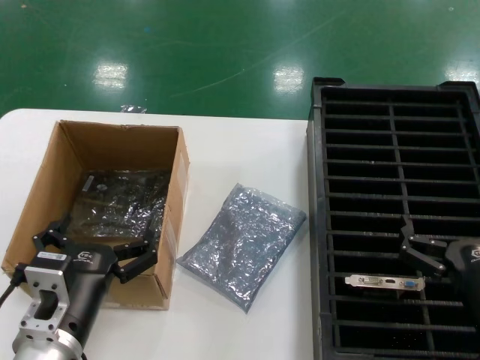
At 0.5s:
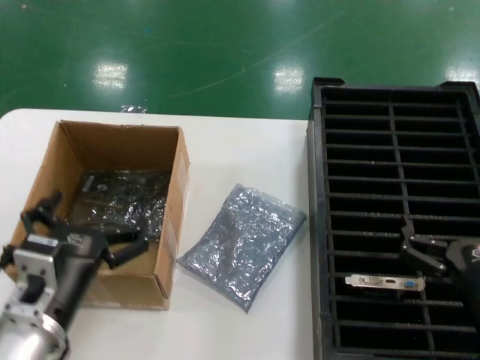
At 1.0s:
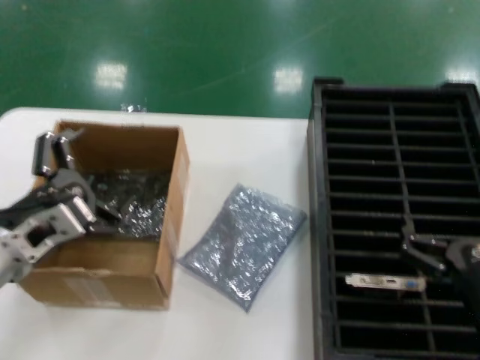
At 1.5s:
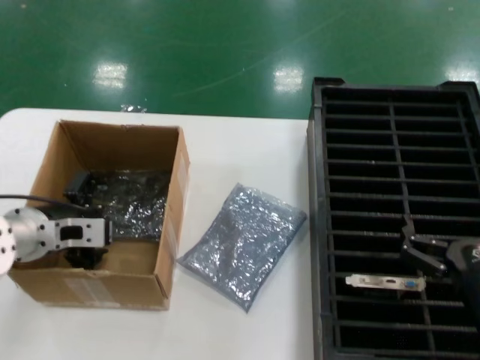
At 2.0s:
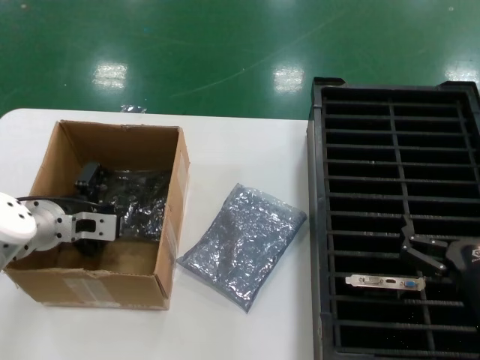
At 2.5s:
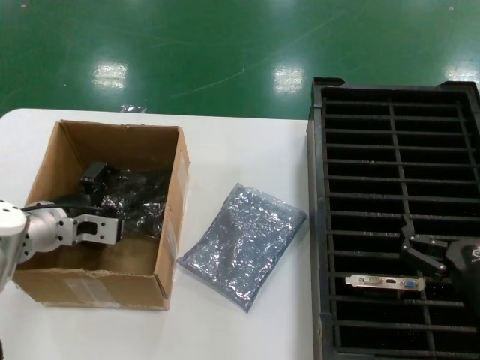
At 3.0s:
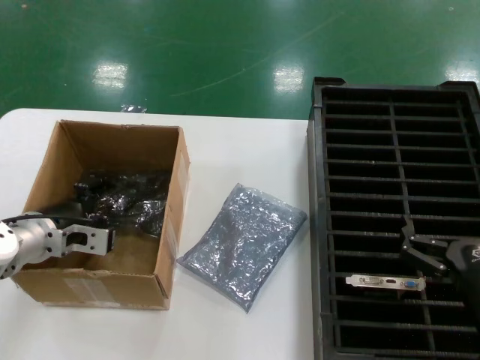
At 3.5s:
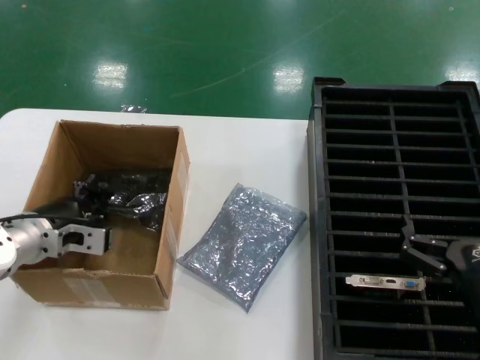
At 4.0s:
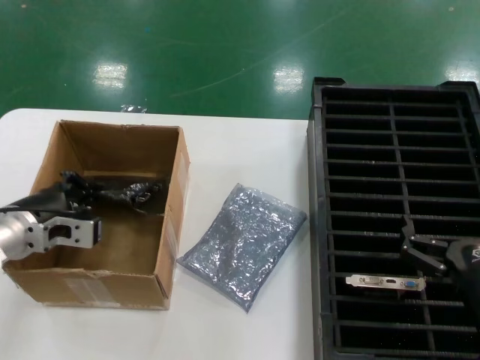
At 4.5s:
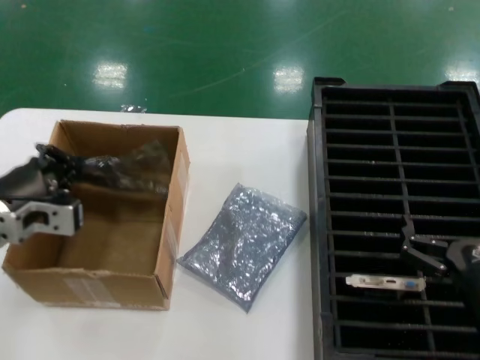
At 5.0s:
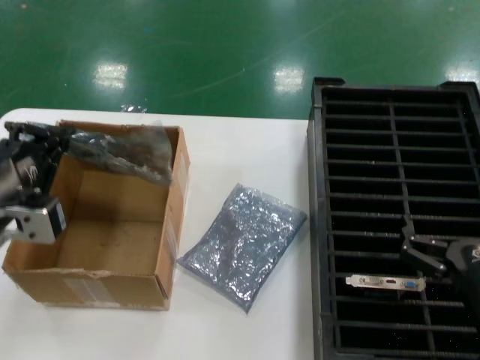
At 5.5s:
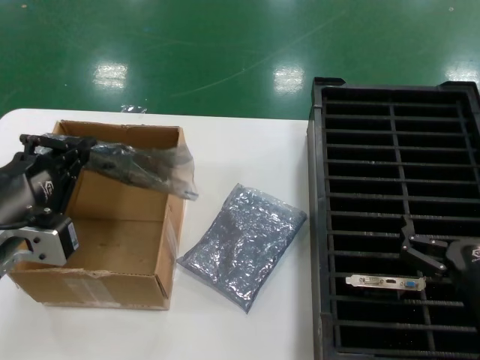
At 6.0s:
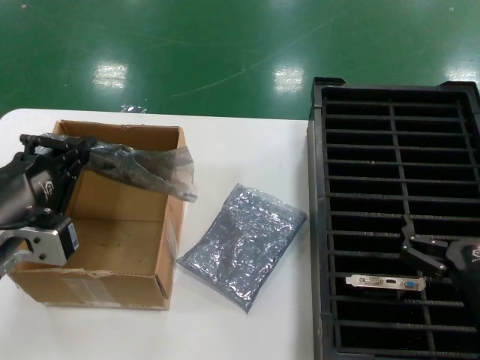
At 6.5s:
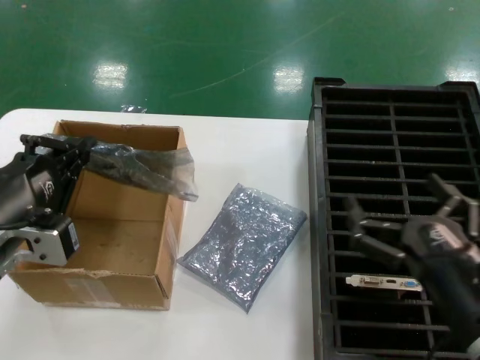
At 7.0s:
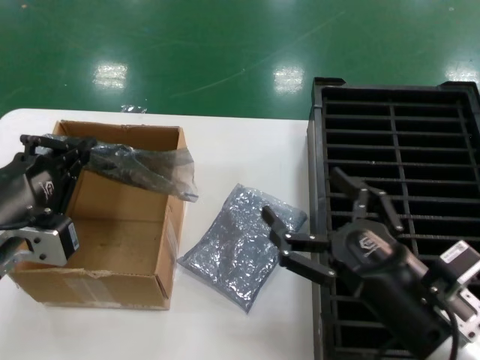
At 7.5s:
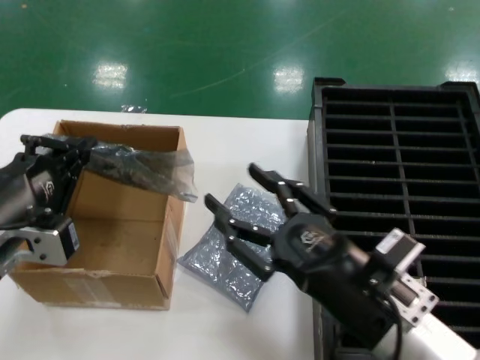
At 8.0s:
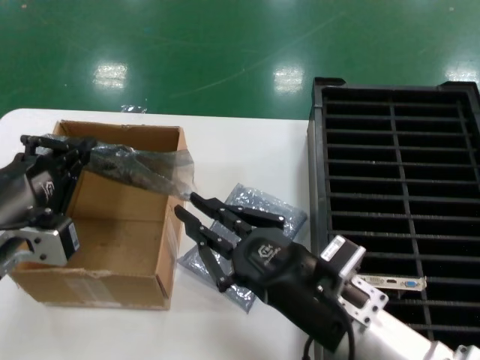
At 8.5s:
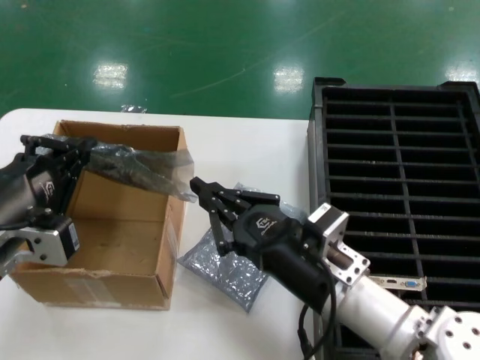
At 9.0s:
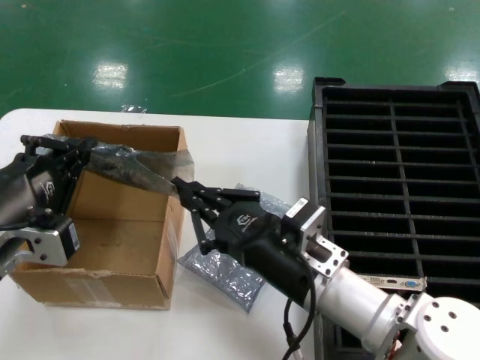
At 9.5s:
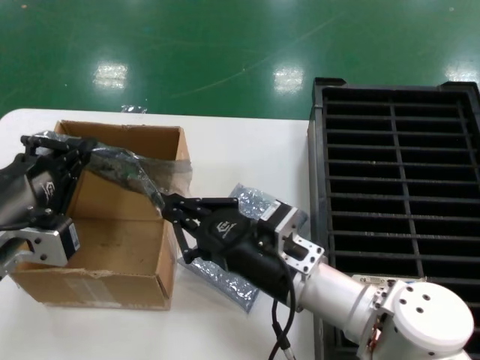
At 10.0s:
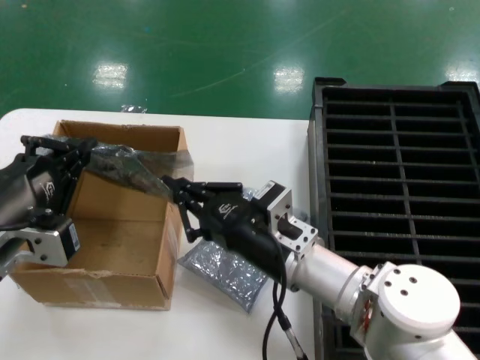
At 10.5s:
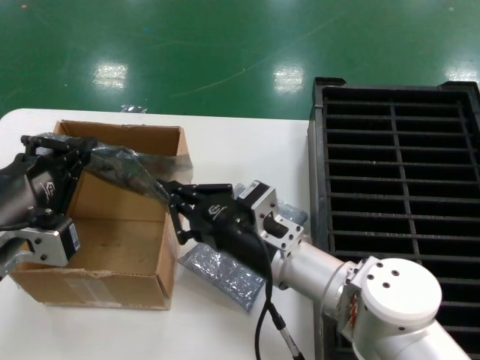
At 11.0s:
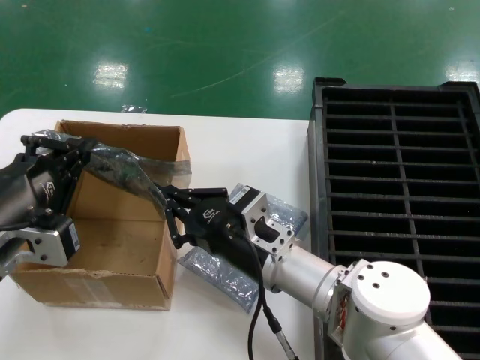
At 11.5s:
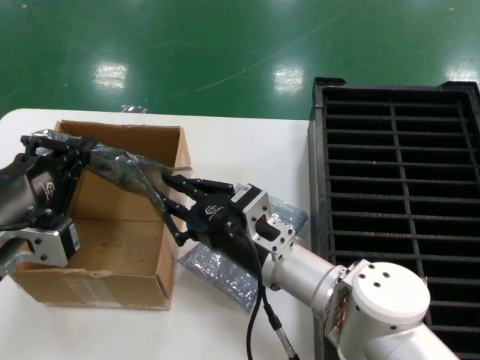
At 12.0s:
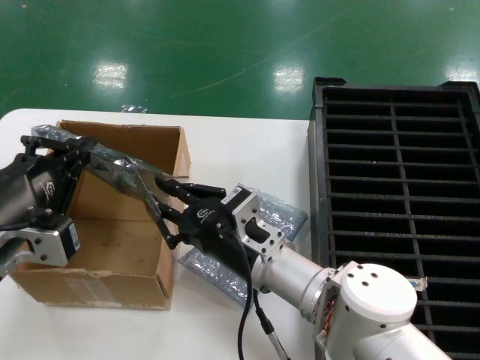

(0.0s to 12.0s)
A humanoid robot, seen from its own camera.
Task of the whole recording: take out graphics card from box remove packaging put into black container.
Step, 0.0s - 4.0s: Grasp the bag.
Step, 4.5s - 5.5s: Lift the bag.
0.0s - 2.0s: The left hand moves forward and to the left, roughly 25 cm.
2.0s - 4.0s: The left hand shifts by approximately 5 cm.
4.0s - 6.0s: The left hand heads backward and upward, covering approximately 20 cm.
6.0s - 8.0s: The right hand shifts some 15 cm to the left.
8.0s - 10.0s: The right hand heads forward and to the left, covering roughly 10 cm.
10.0s - 12.0s: The hands move only a little.

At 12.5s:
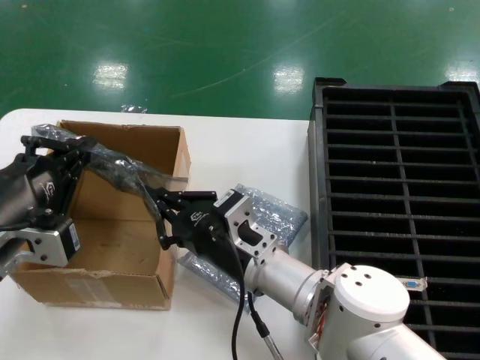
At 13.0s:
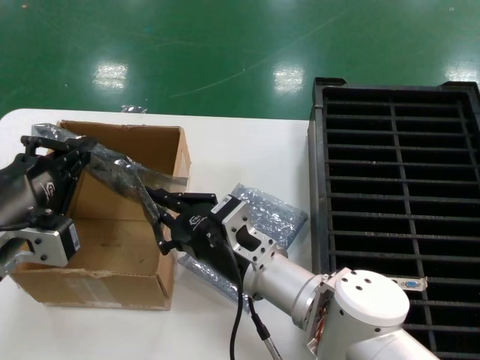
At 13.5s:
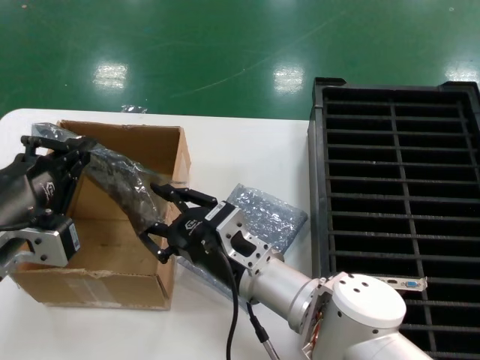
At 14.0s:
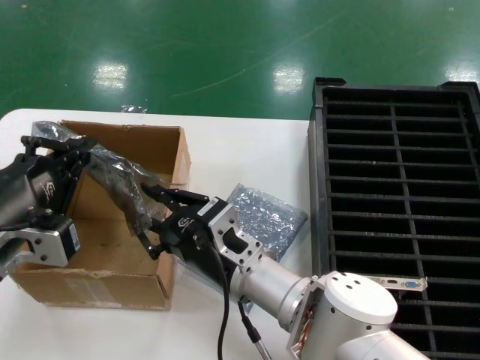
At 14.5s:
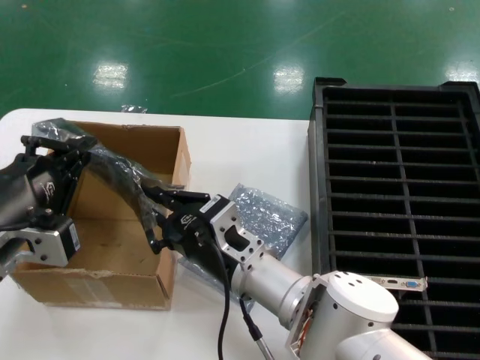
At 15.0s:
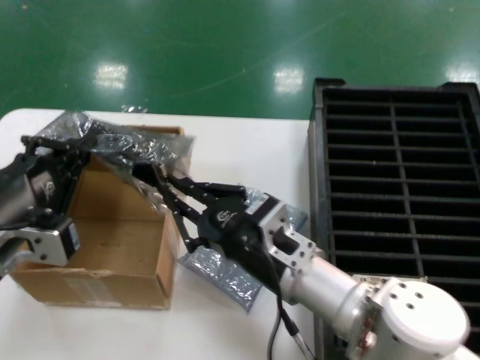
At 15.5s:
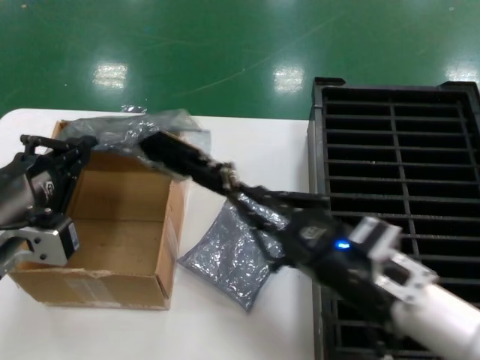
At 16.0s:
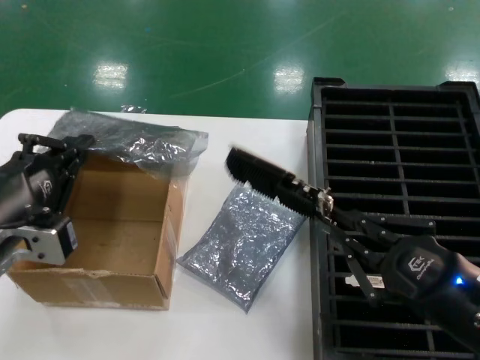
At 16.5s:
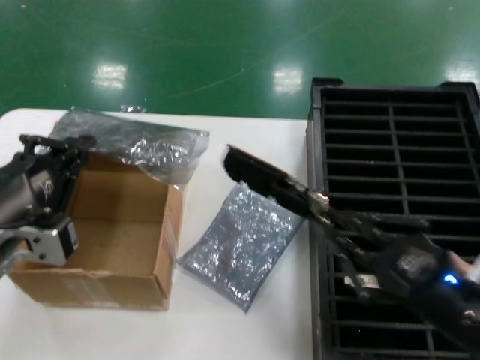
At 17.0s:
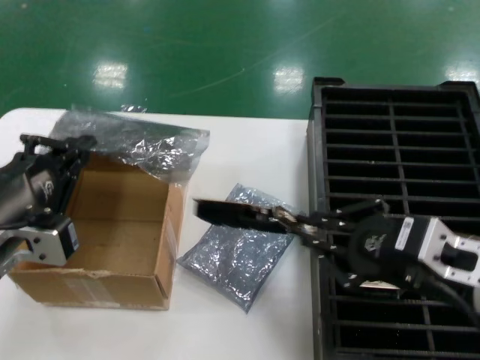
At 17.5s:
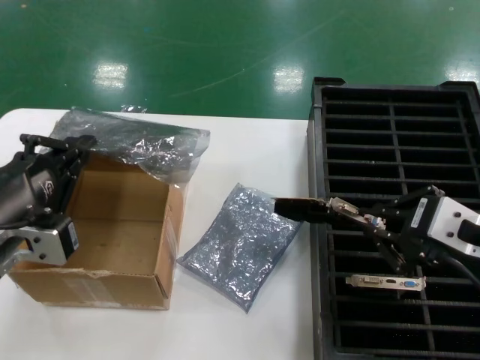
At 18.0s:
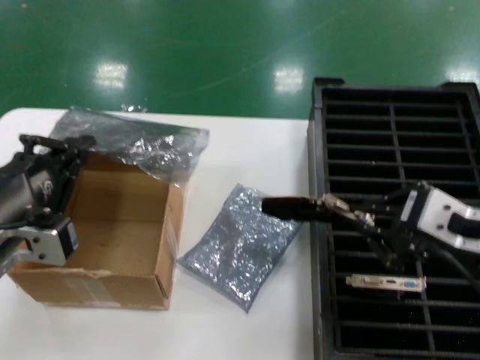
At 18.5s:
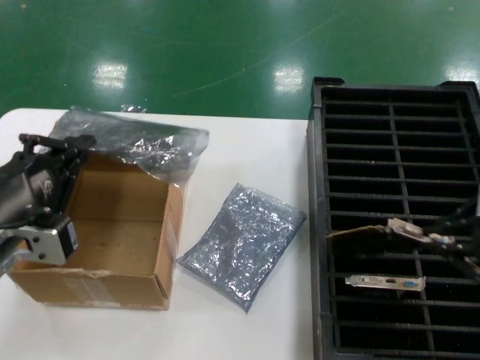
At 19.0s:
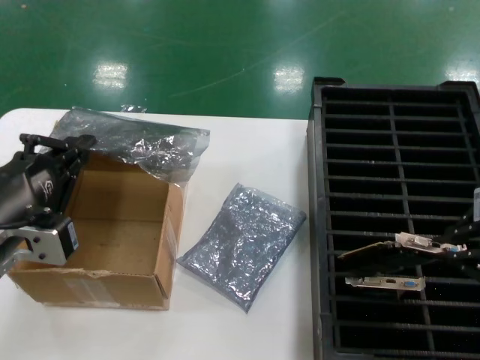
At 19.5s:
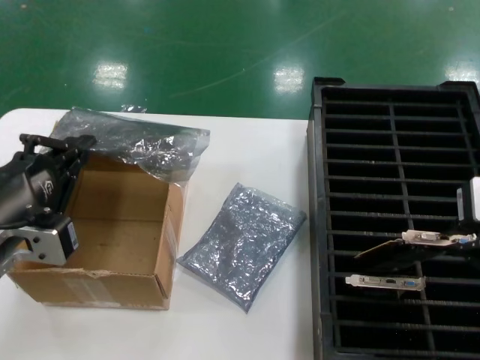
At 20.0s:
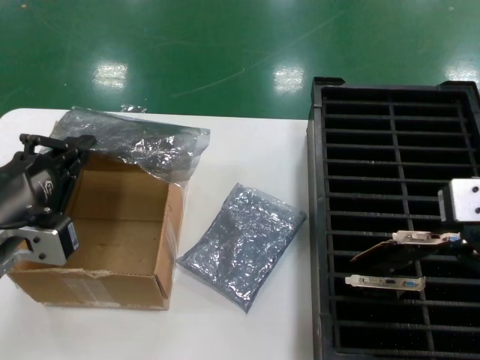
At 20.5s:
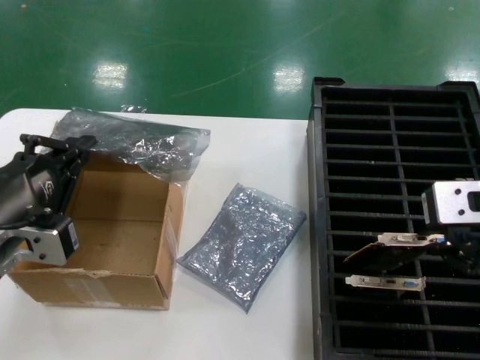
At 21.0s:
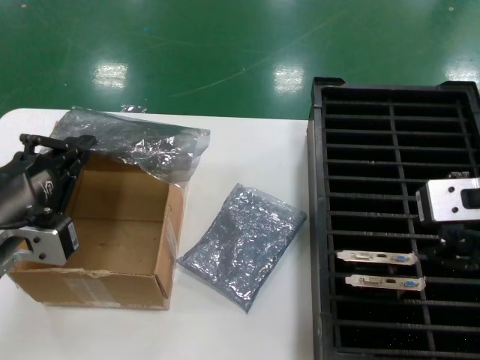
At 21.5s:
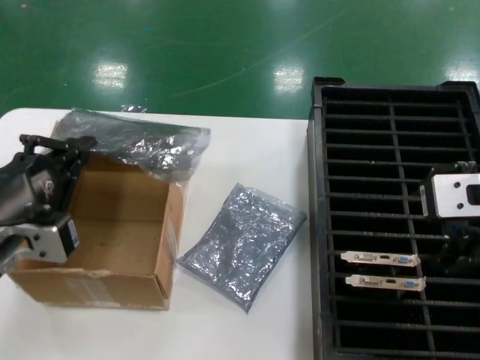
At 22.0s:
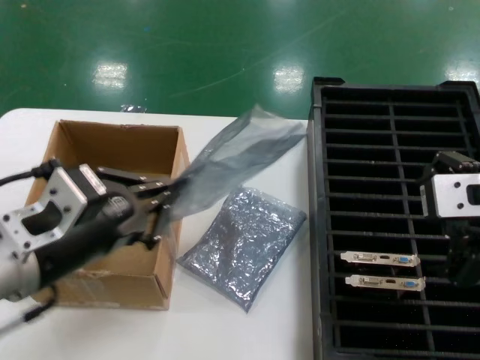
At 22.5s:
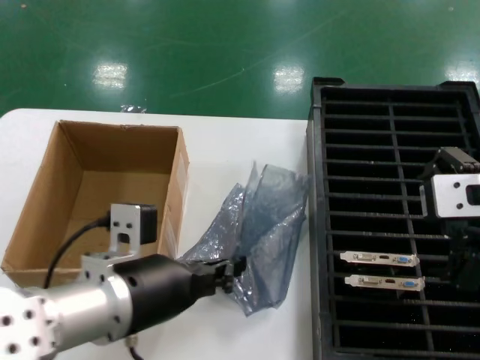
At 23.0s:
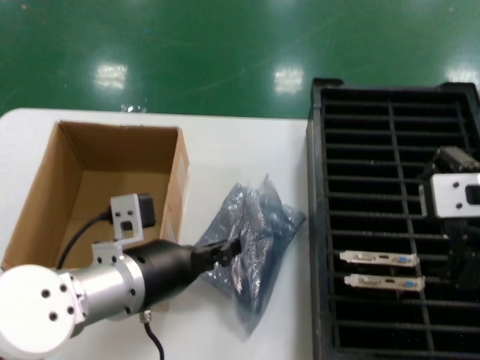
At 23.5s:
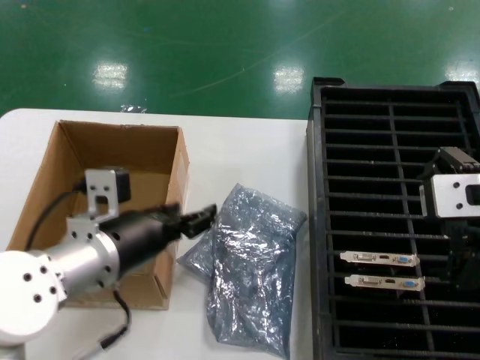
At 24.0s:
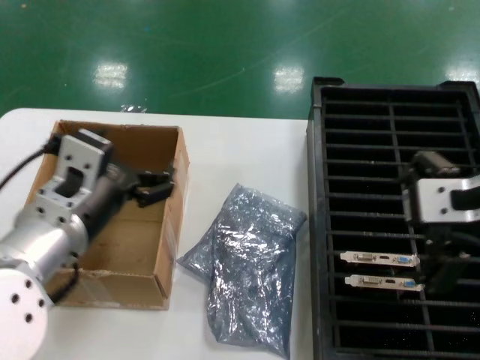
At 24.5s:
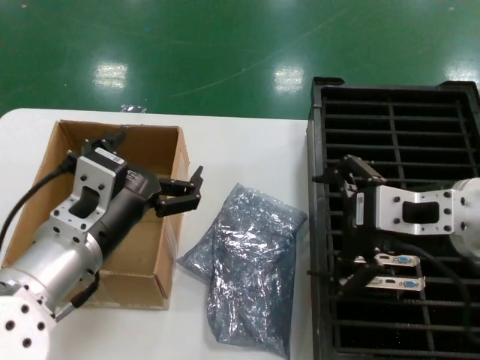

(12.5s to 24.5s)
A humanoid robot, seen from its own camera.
Task of the whole recording: take out graphics card from box remove packaging put into black container.
Step, 12.5s - 15.5s: Take out the hard disk of the bag.
Step, 16.0s - 20.5s: Place the hard disk in the hard disk enclosure.
Step, 21.0s - 23.0s: Place the down the bag.
12.5s - 14.5s: There are only small adjustments of the hands.
14.5s - 16.5s: The right hand heads to the right and backward, covering roughly 30 cm.
16.5s - 18.5s: The right hand goes some 15 cm upward.
18.5s - 20.5s: The right hand moves roughly 5 cm.
20.5s - 22.5s: The left hand shifts approximately 10 cm to the right.
22.5s - 24.5s: The right hand travels downward by roughly 5 cm.

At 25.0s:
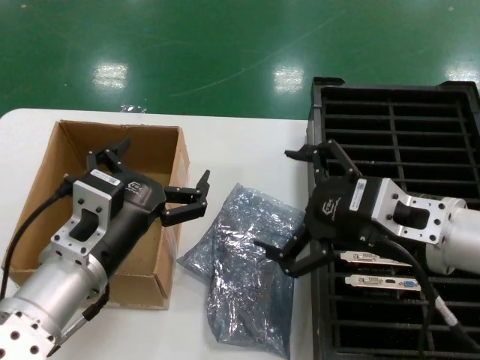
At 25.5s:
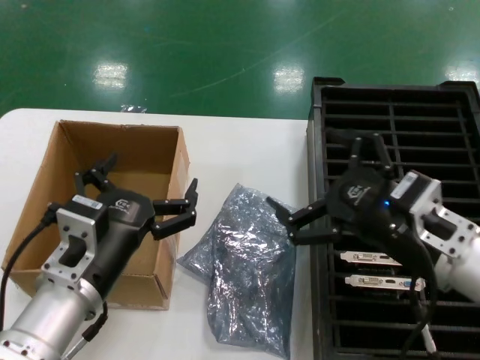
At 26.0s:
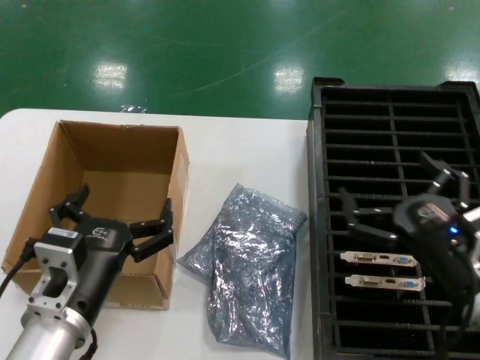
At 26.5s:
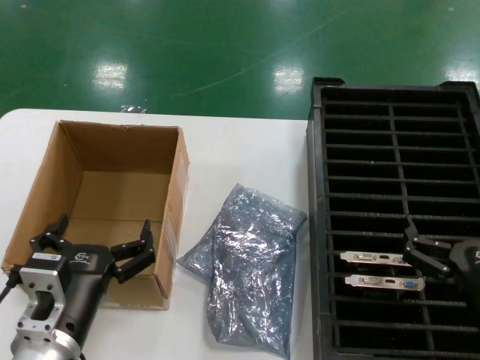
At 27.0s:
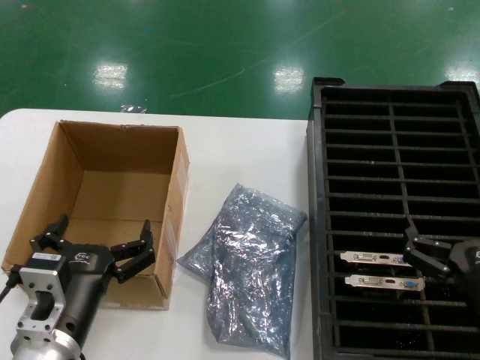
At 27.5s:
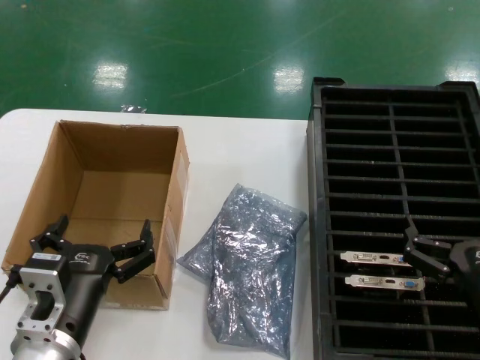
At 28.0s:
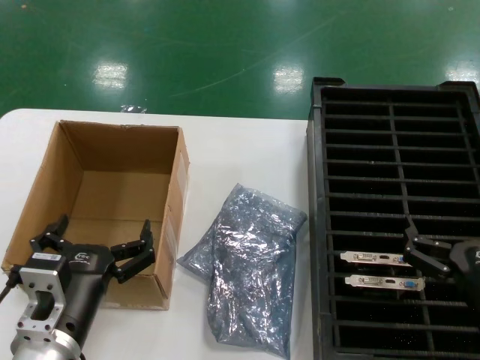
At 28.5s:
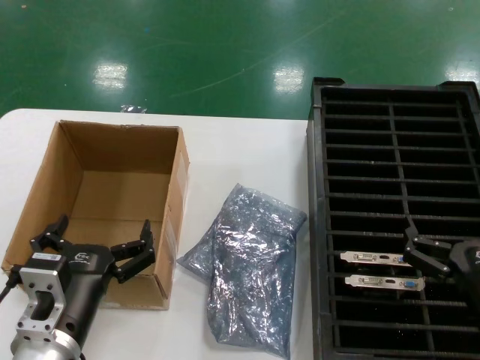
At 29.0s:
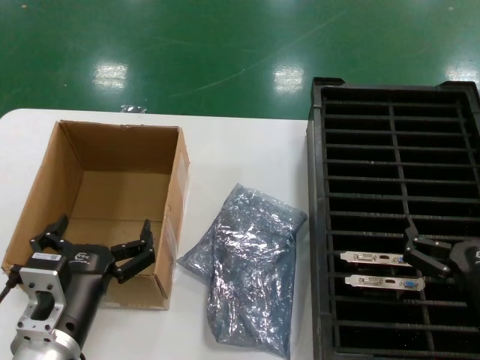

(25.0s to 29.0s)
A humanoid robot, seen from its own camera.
Task of the whole recording: take out graphics card from box remove packaging put into black container.
25.0s - 27.0s: The left hand is displaced downward by about 10 cm. The right hand heads downward and to the right, covering some 20 cm.
27.0s - 29.0s: Neither hand changes place.
